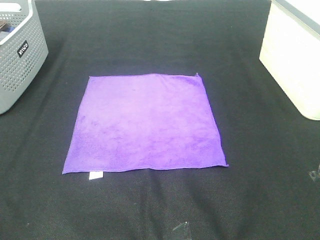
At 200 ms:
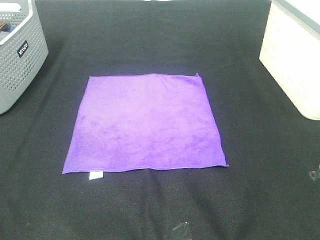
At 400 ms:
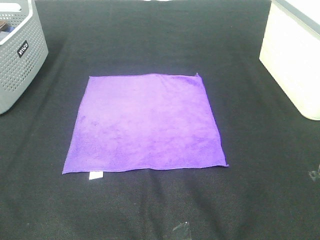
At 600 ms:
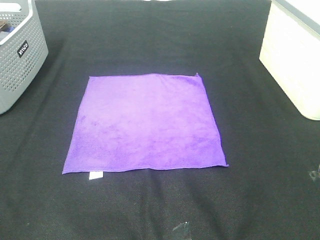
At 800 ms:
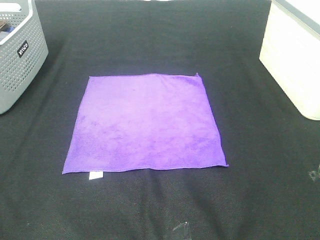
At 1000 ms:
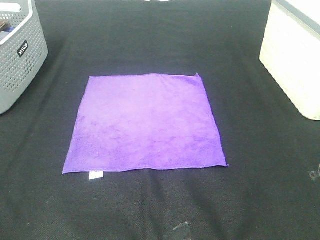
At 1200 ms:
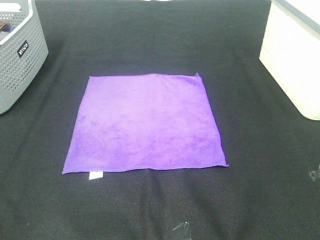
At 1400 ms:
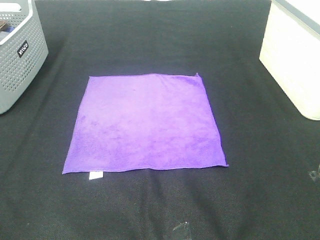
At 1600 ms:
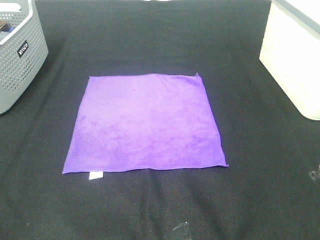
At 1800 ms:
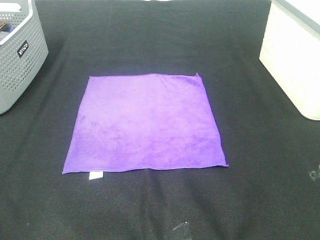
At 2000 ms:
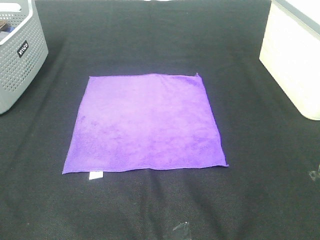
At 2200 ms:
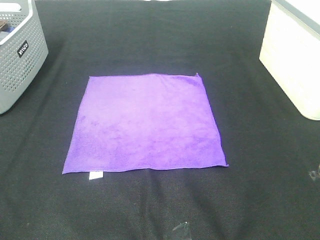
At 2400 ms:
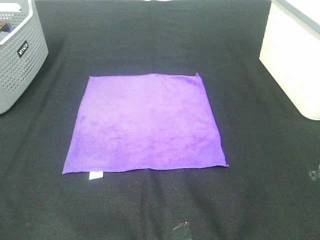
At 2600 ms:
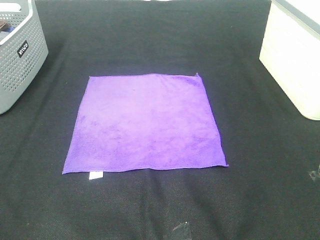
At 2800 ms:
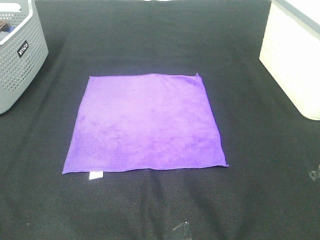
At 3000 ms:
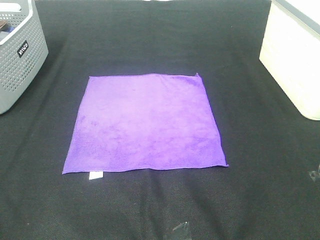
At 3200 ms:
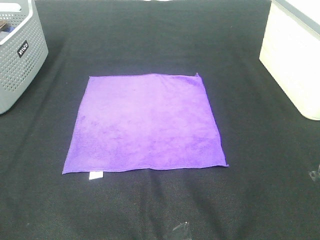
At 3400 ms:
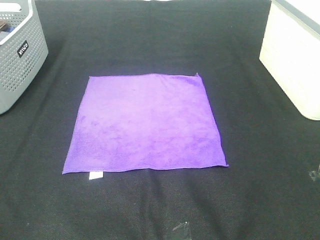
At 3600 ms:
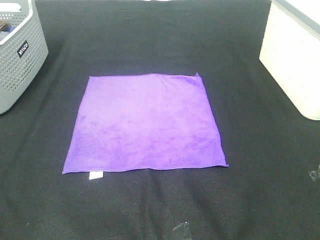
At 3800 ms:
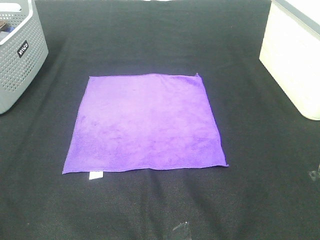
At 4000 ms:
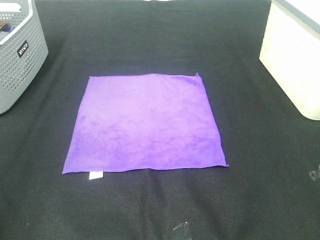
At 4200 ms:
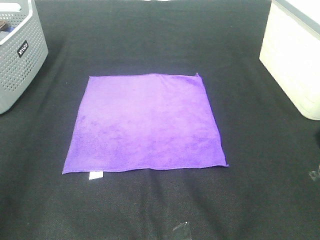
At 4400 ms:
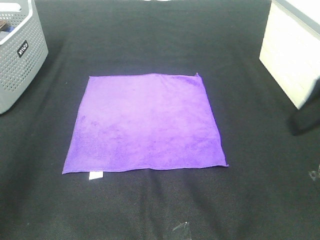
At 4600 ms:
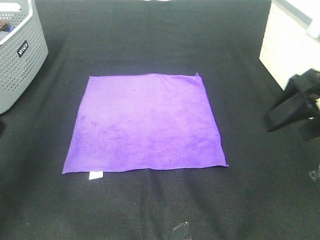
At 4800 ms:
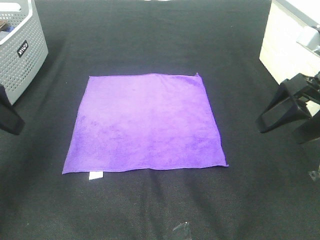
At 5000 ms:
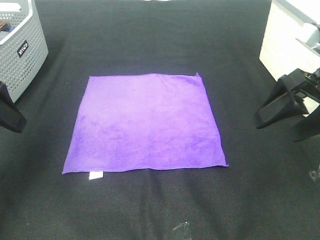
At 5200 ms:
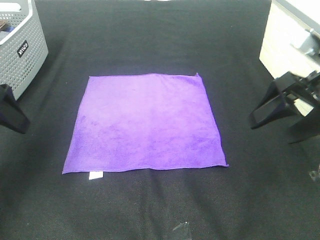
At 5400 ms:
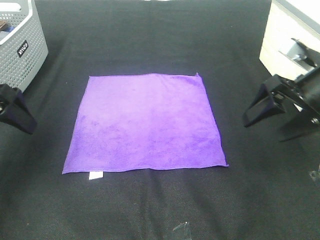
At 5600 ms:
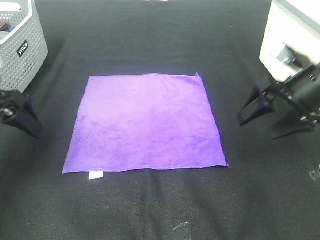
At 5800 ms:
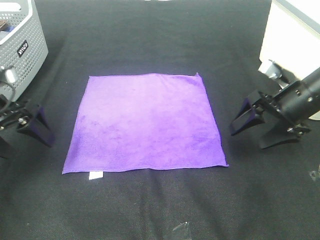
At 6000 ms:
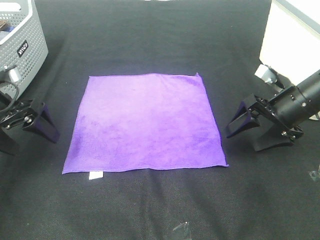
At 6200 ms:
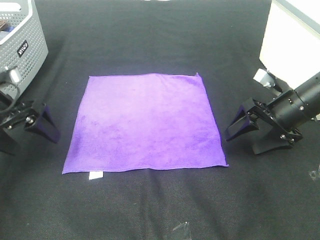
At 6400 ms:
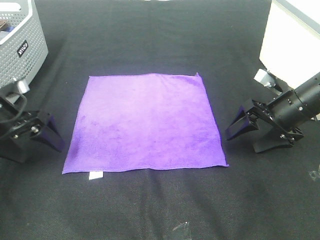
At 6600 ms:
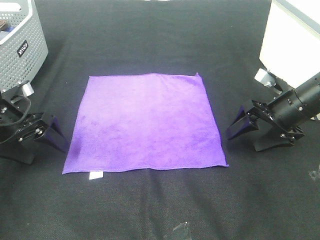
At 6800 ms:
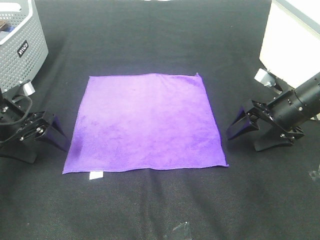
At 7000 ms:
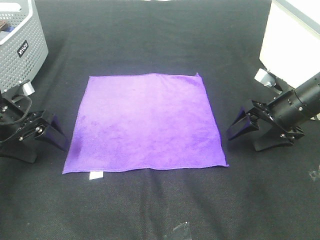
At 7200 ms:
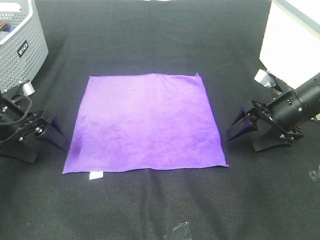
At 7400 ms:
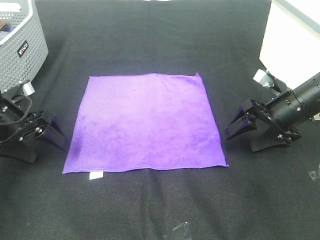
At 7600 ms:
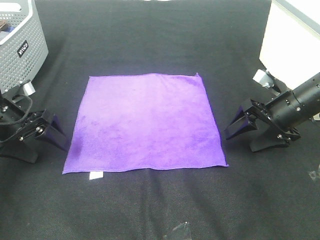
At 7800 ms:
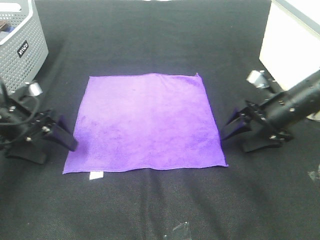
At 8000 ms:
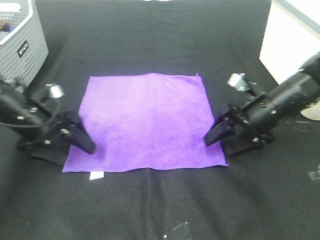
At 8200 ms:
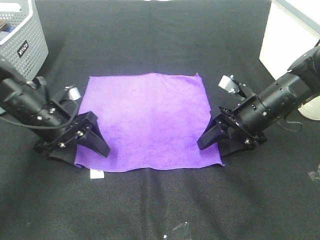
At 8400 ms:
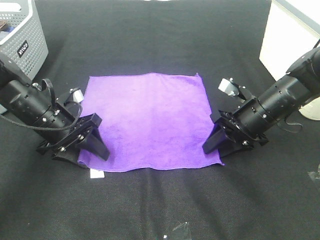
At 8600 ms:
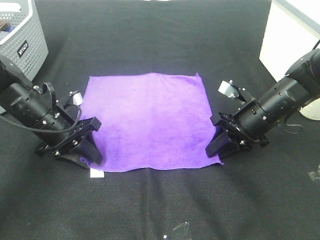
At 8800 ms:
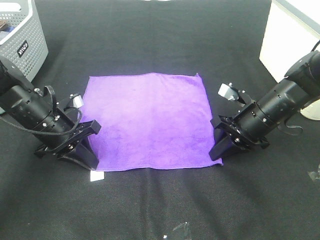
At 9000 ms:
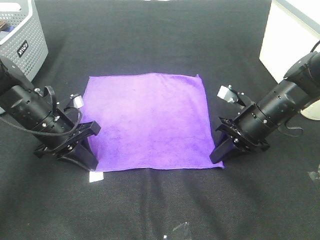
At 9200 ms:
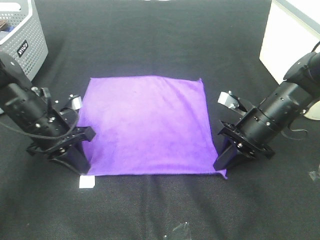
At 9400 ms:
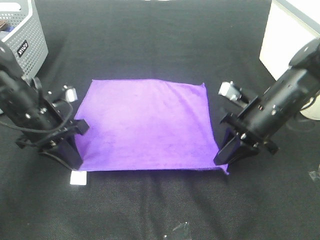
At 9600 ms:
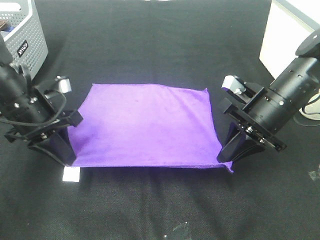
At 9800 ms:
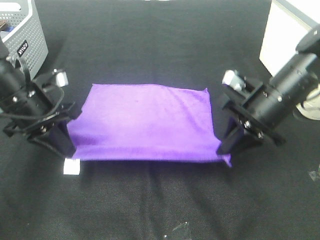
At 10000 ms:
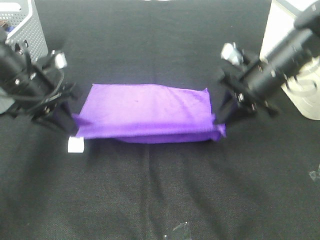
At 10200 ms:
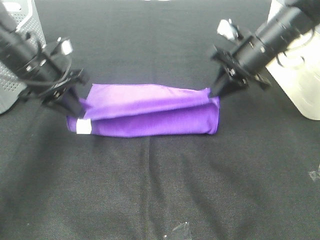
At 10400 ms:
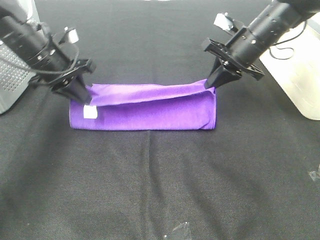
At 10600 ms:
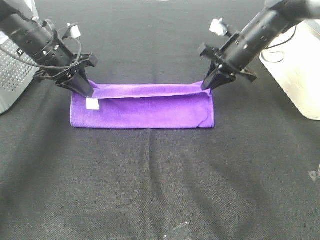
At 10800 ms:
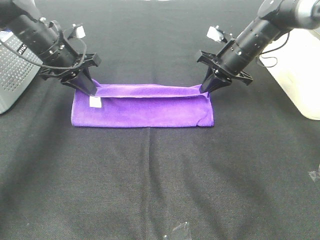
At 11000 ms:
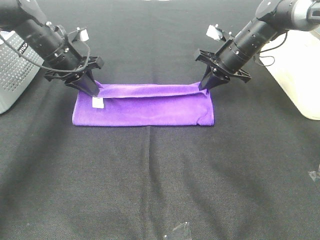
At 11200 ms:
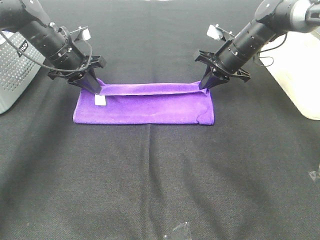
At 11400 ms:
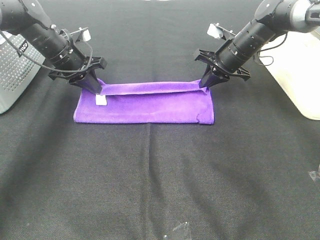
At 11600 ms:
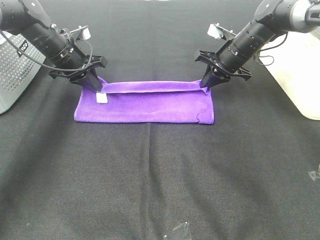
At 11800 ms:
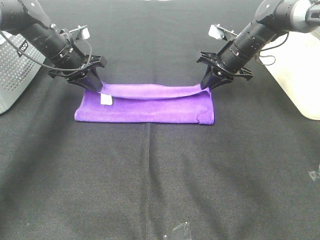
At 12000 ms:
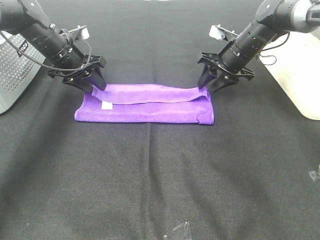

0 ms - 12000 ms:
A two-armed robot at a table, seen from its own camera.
Task of the whole recording: Fold towels.
Step, 0 ms - 8800 ms: Left hand: grab the bottom left corner of purple towel.
Step, 0 ms - 8800 ms: Right hand: grab the bottom right corner of purple towel.
Step, 9000 ms - 11600 ms: Left hand: fold the purple towel up.
Step, 9000 ms - 11600 ms: Right hand: fold the purple towel up.
0 ms - 3000 ms: Neither gripper changes place.
3000 ms - 4400 ms: Both grippers move forward, about 20 cm.
4400 ms - 6000 ms: The two grippers go about 20 cm downward and forward.
6000 ms - 7600 ms: The grippers make only small movements.
7600 ms - 9000 ms: The left gripper goes some 10 cm to the right, and closes. The right gripper heads to the left, covering some 5 cm, and closes up.
9000 ms - 10400 ms: The right gripper is displaced forward and upward by approximately 15 cm, while the left gripper travels upward and forward by roughly 15 cm.
10400 ms - 12000 ms: The two grippers go roughly 5 cm forward. The left gripper opens up, while the right gripper opens.

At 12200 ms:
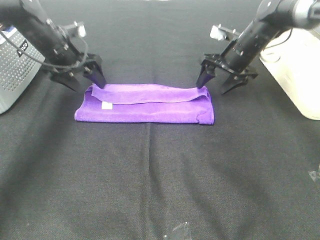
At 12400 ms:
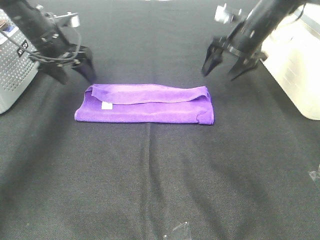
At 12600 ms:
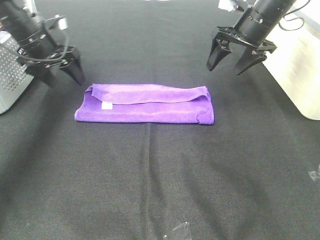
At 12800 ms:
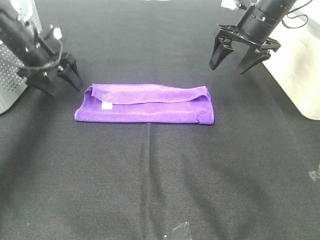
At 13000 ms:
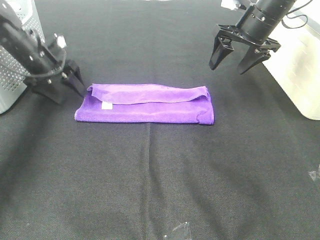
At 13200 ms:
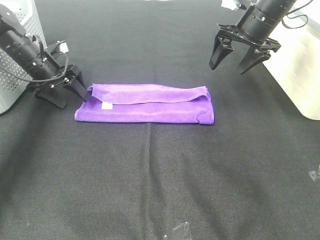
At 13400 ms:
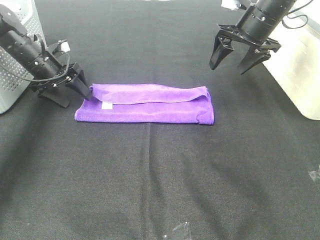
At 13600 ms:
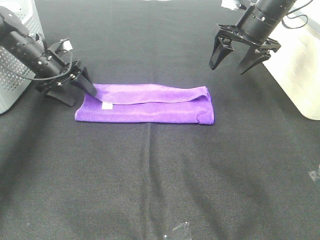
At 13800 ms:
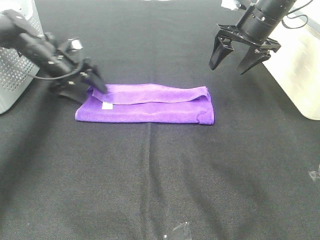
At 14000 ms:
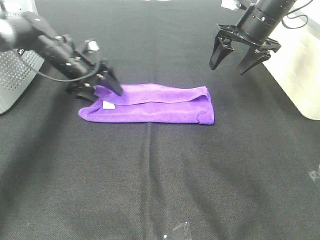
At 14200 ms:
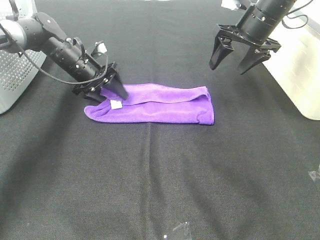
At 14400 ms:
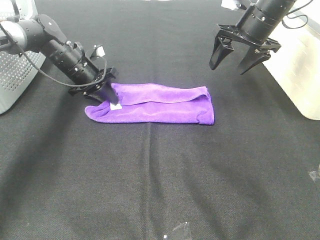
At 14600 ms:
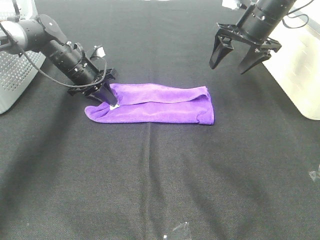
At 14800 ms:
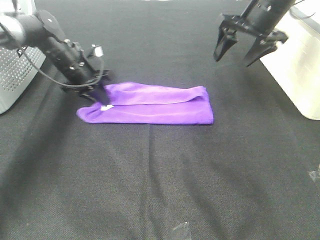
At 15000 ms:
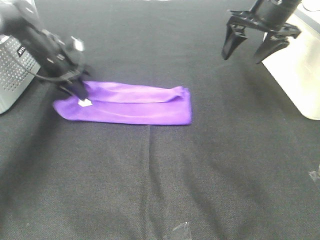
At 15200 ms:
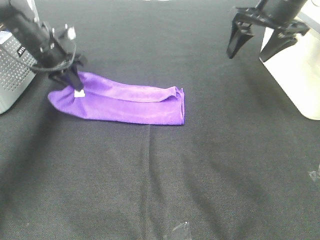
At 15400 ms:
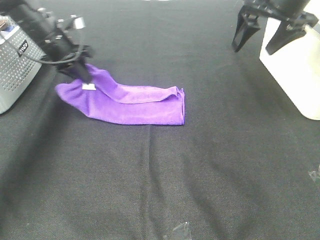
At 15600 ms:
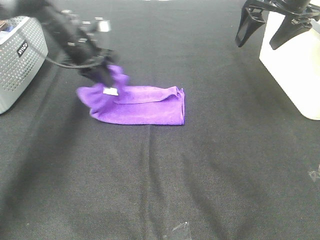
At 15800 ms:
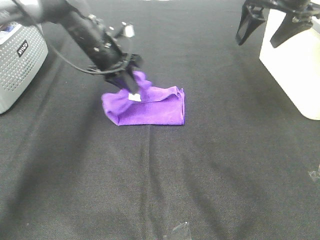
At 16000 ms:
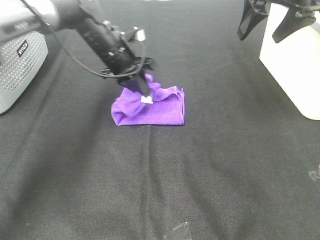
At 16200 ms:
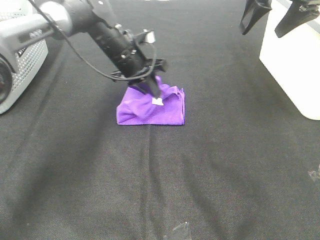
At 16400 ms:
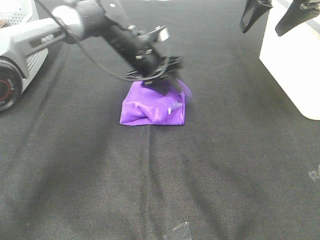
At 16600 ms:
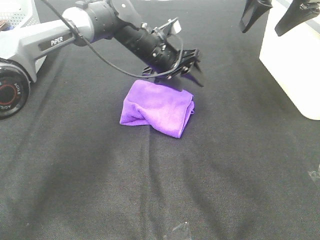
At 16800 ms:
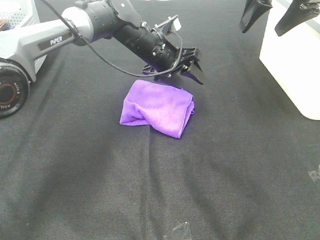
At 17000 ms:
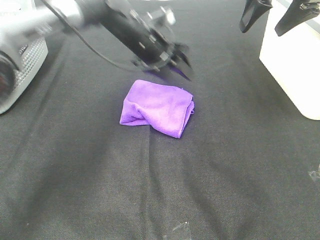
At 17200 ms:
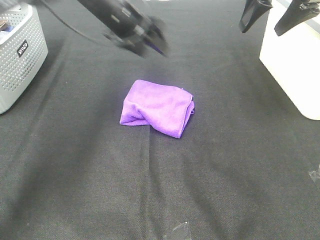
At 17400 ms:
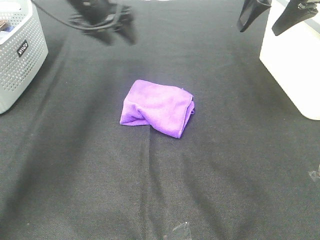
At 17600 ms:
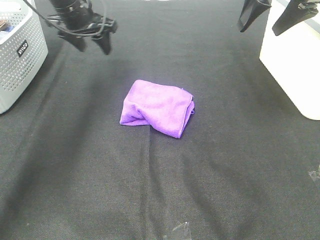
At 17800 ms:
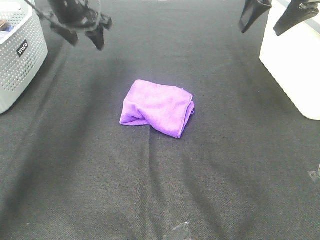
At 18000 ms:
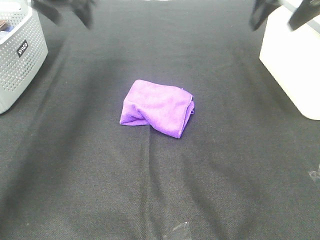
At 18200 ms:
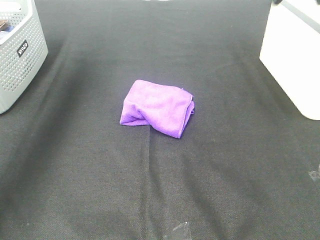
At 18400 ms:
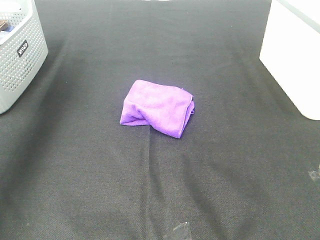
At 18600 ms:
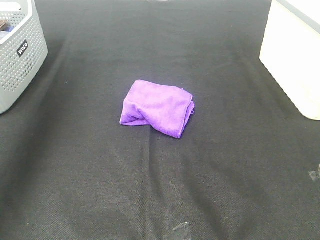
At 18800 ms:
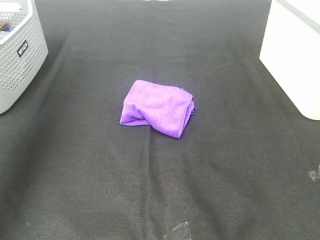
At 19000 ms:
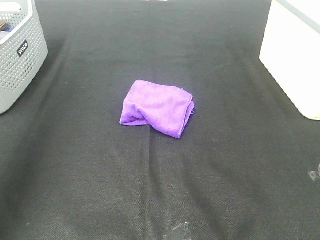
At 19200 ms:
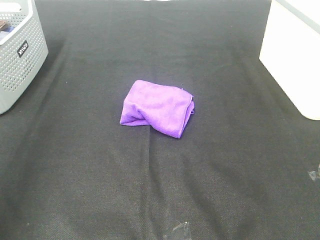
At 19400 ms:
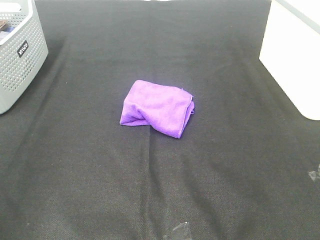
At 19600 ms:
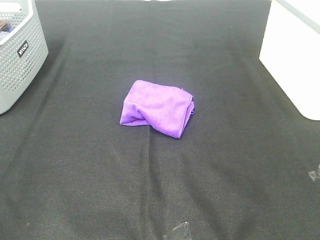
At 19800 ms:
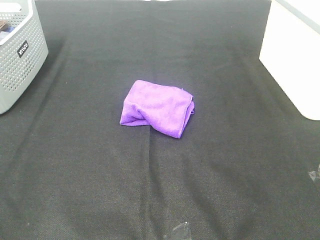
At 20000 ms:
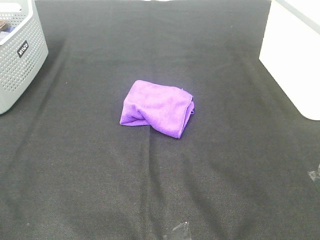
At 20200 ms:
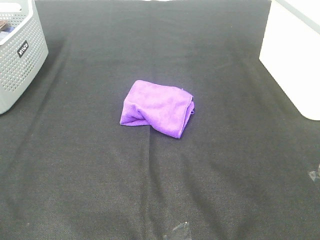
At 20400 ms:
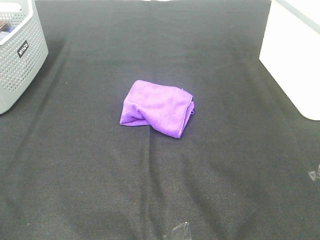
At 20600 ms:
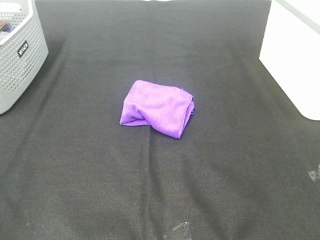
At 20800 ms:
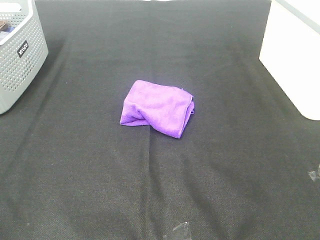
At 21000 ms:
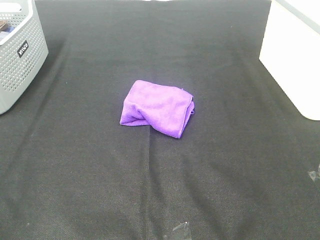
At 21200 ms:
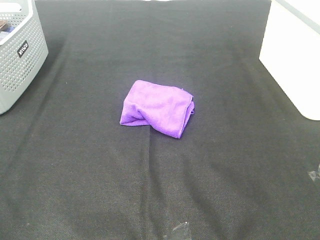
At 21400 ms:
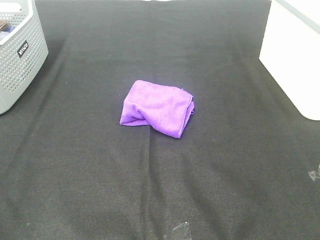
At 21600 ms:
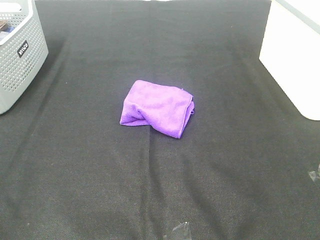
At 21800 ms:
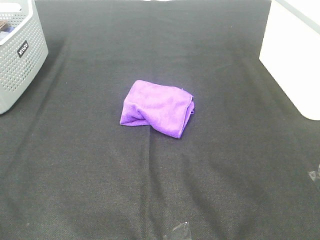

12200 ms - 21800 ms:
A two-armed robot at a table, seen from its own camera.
Task of the whole recording: Fold towels.
Step, 12200 ms - 16400 ms: Left hand: fold the purple towel from left to right.
12200 ms - 13800 ms: The left gripper is displaced downward by about 5 cm; the right gripper heads upward, covering approximately 10 cm.
13800 ms - 15400 ms: The left gripper heads upward, covering some 5 cm, and closes up. The right gripper travels upward and backward by approximately 10 cm.
15400 ms - 17000 ms: The left gripper moves to the right, some 15 cm, and opens up.
17000 ms - 18600 ms: The left gripper travels to the left, upward and backward by roughly 40 cm; the right gripper shifts approximately 20 cm backward and upward.
18600 ms - 20200 ms: The left gripper travels backward and downward by approximately 35 cm.
20200 ms - 21800 ms: Both grippers stay about where they are.
